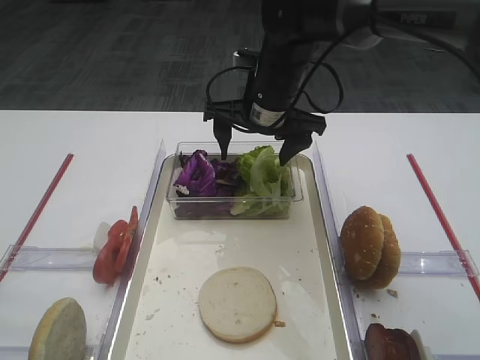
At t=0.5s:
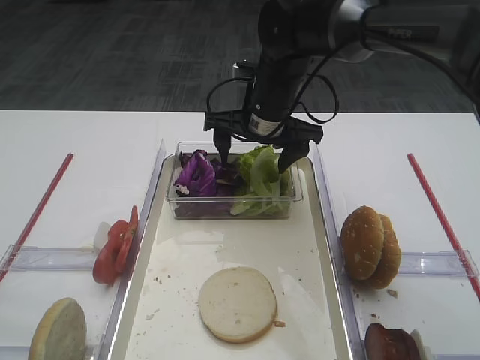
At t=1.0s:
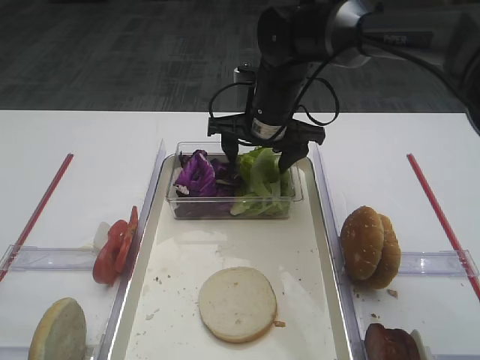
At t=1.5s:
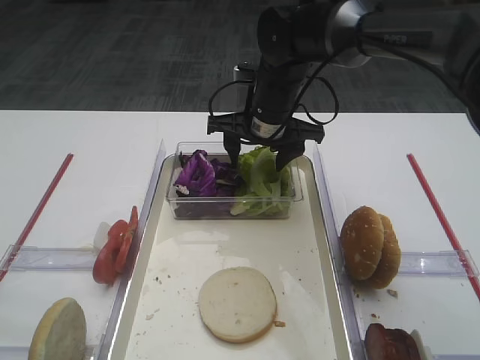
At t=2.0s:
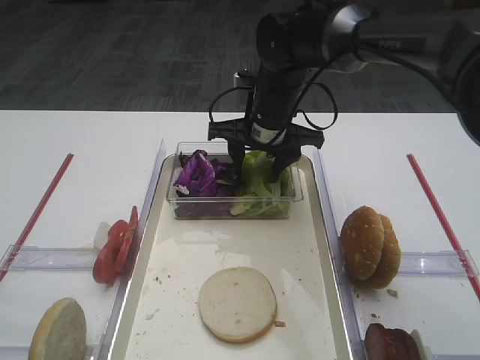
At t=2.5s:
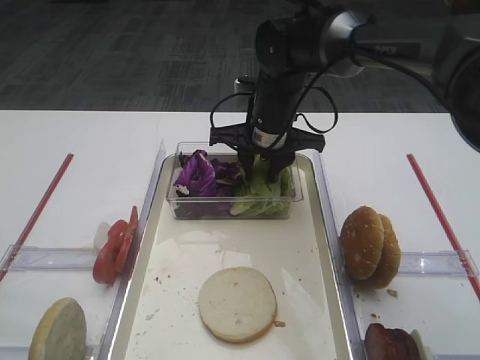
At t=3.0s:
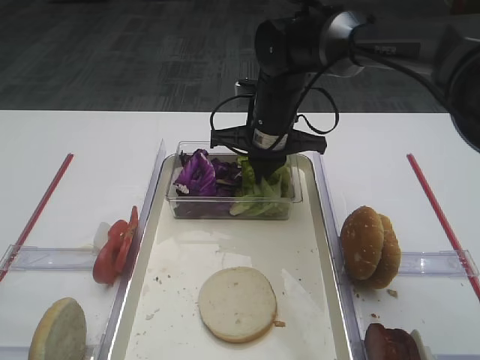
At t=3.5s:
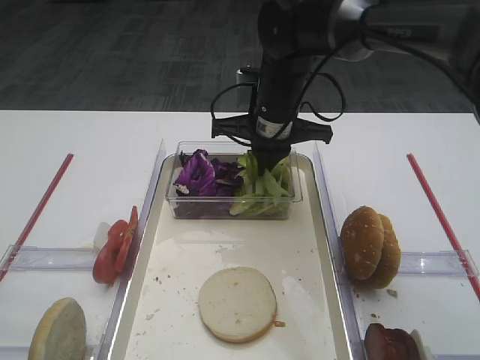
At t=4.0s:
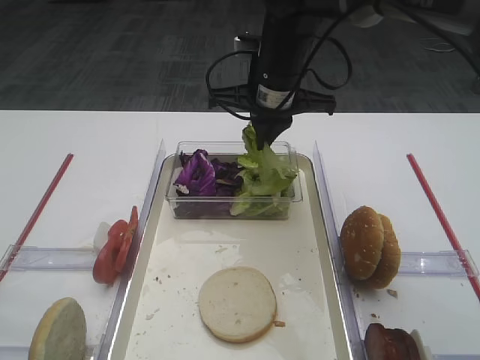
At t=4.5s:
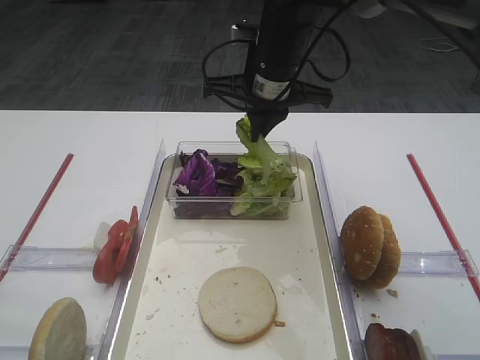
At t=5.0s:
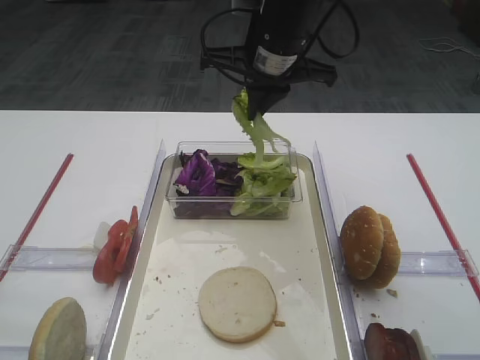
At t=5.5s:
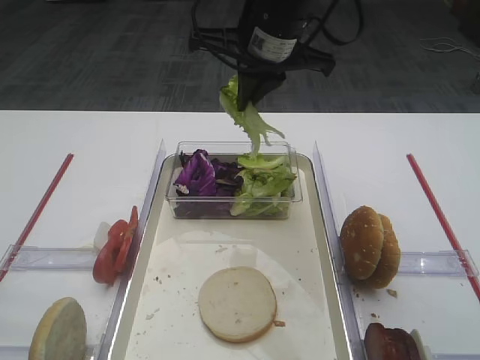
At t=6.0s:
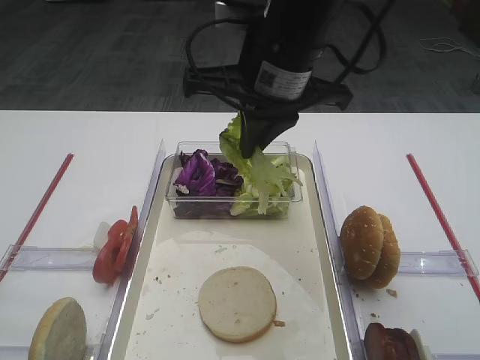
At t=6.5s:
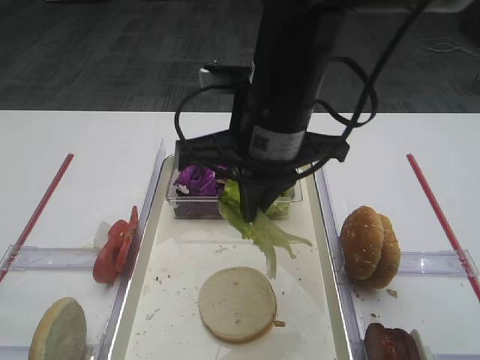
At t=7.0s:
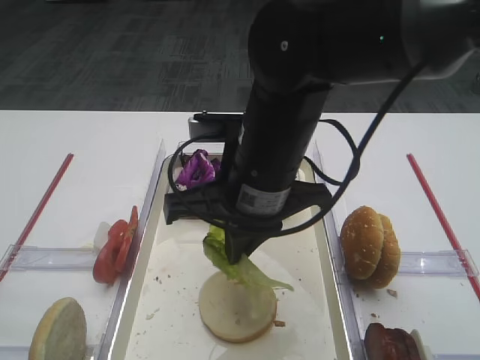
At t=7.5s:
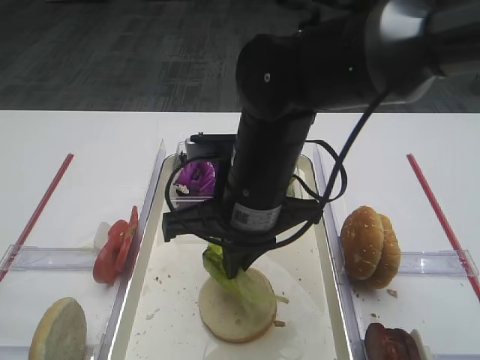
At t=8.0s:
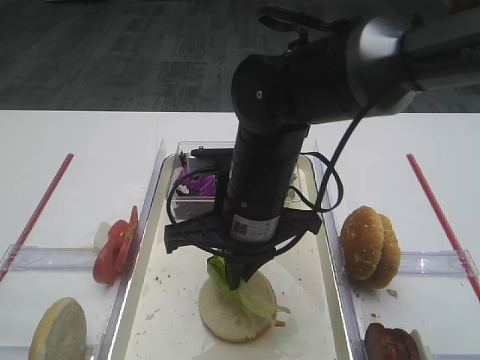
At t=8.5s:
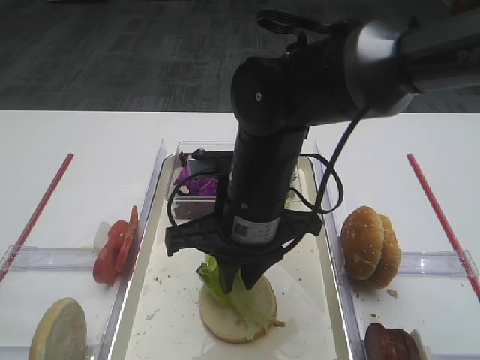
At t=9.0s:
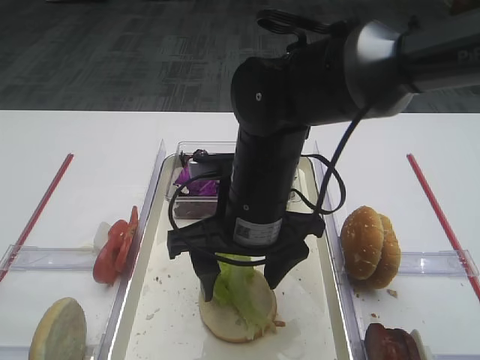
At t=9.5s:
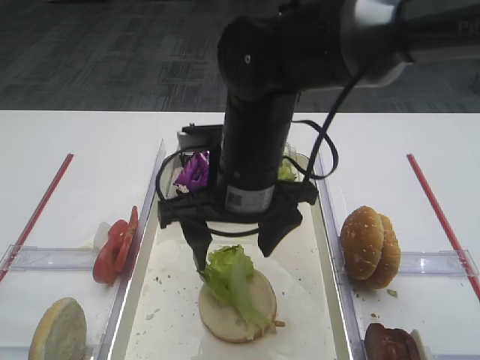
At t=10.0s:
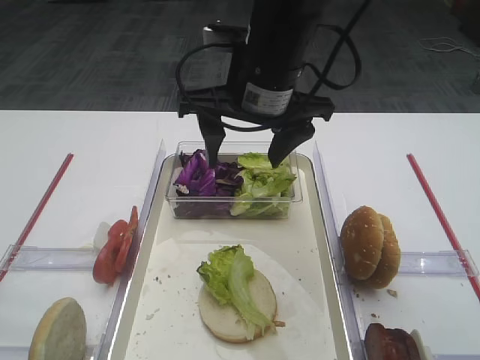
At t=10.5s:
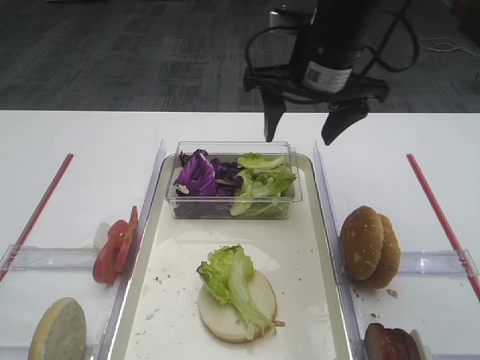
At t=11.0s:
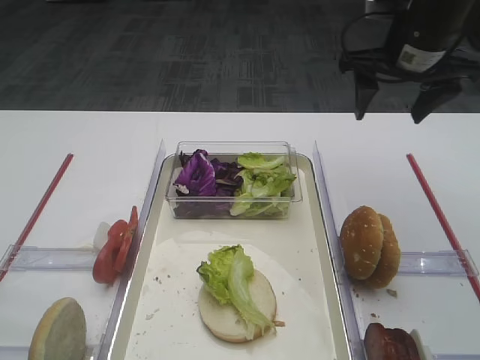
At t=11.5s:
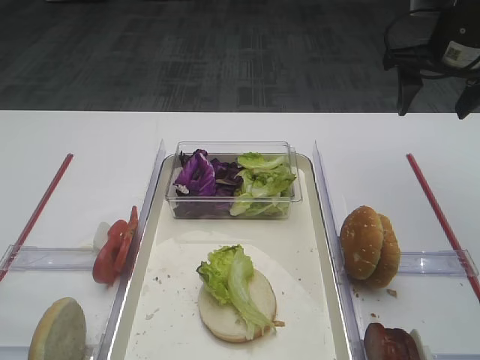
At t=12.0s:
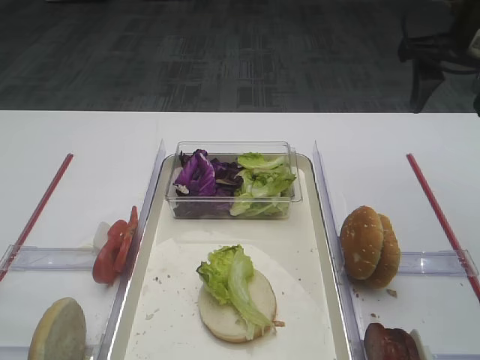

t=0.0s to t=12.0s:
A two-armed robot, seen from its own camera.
Step, t=0.0s to t=4.0s: Pick up the lettuce leaf with the right gripper.
Step, t=4.5s to t=9.5s: Place the lettuce leaf on the bread slice with the right gripper.
t=0.0s to t=2.0s: The grippers make only small movements.
t=2.0s to t=4.0s: The right gripper moves upward, approximately 5 cm, and closes.
t=4.0s to t=6.0s: The right gripper moves backward and upward, roughly 10 cm.
t=6.0s to t=8.0s: The right gripper moves downward and backward, about 15 cm.
t=8.0s to t=10.0s: The right gripper is displaced upward and forward by about 10 cm, and opens.
t=10.0s to t=12.0s: The right gripper moves to the right, some 25 cm.
